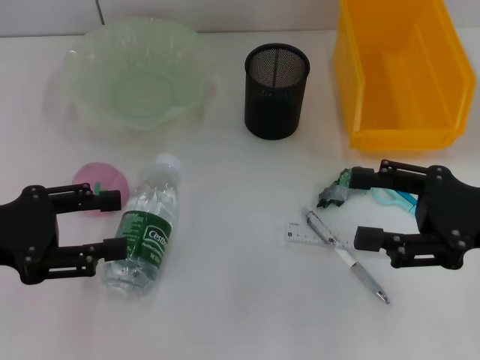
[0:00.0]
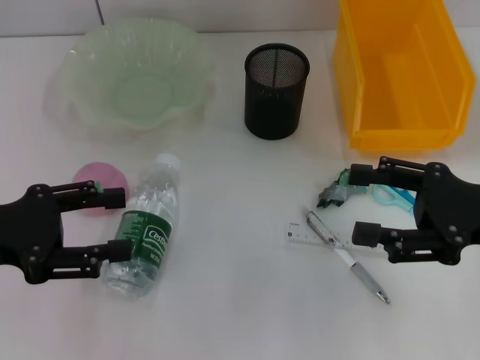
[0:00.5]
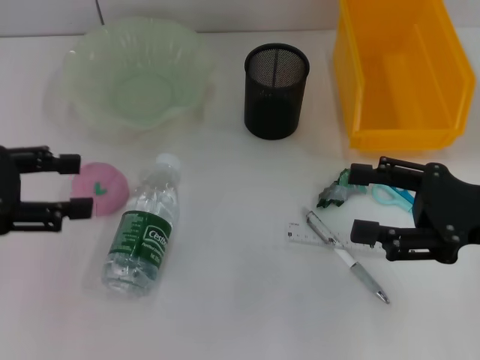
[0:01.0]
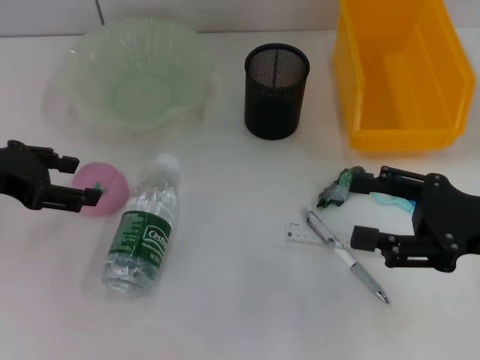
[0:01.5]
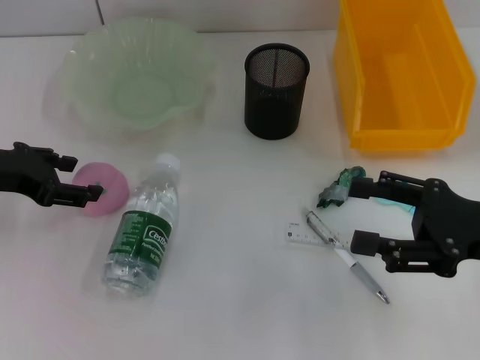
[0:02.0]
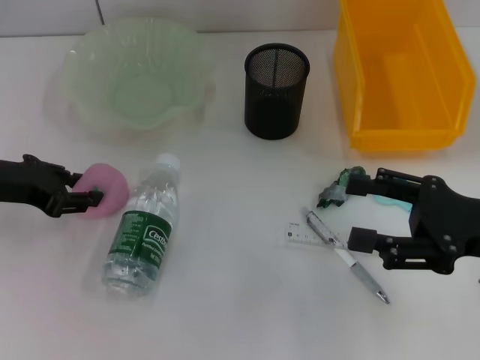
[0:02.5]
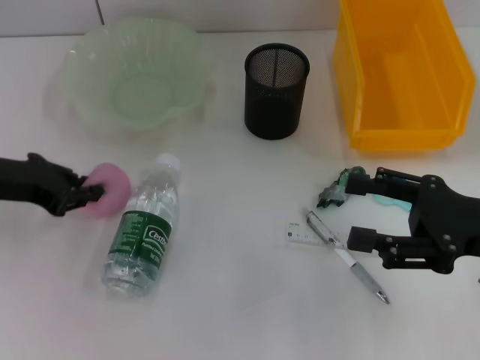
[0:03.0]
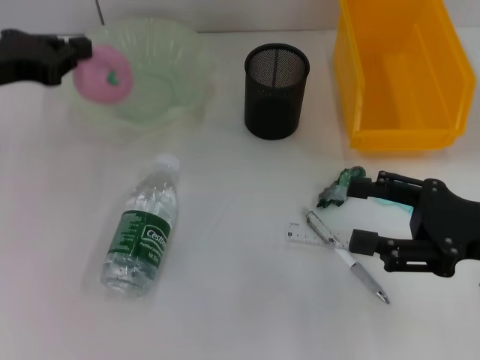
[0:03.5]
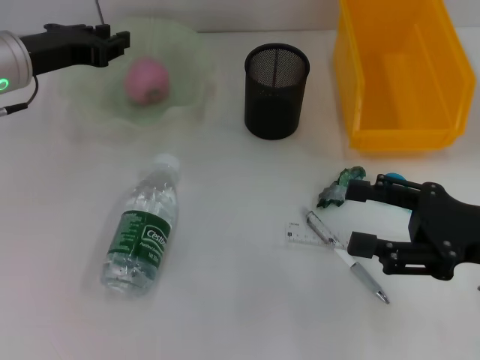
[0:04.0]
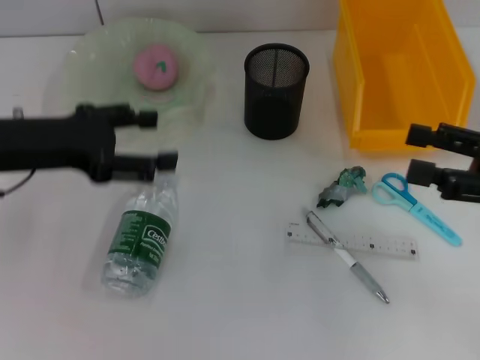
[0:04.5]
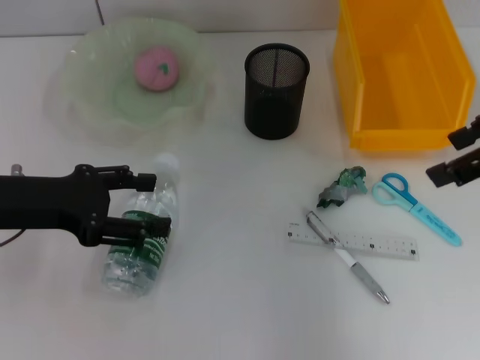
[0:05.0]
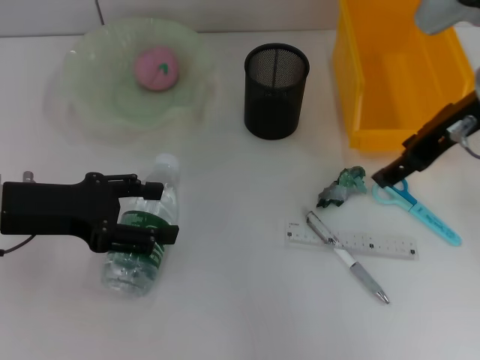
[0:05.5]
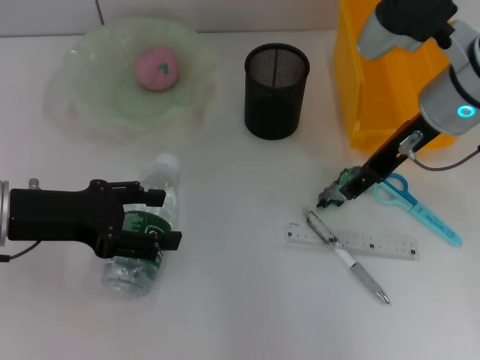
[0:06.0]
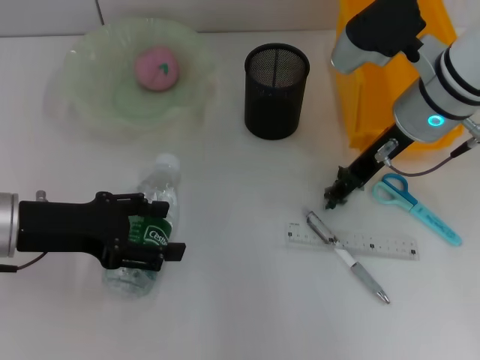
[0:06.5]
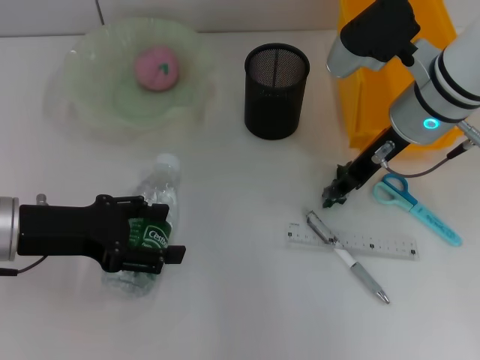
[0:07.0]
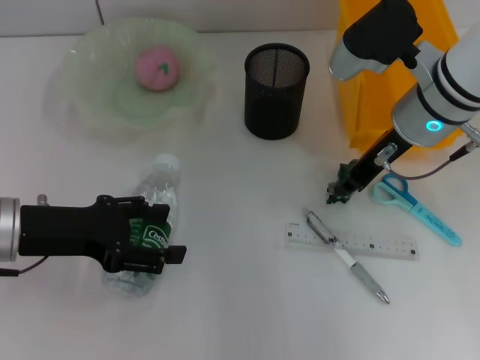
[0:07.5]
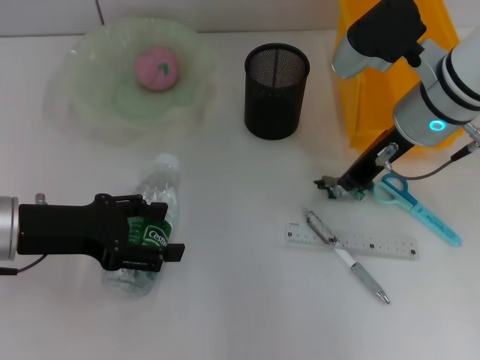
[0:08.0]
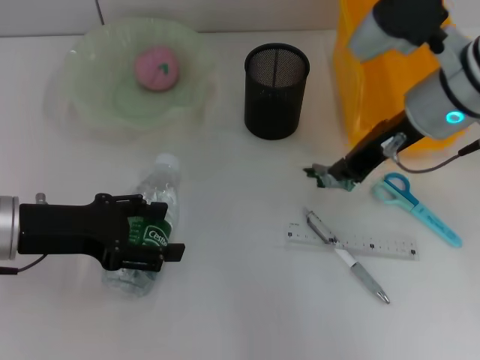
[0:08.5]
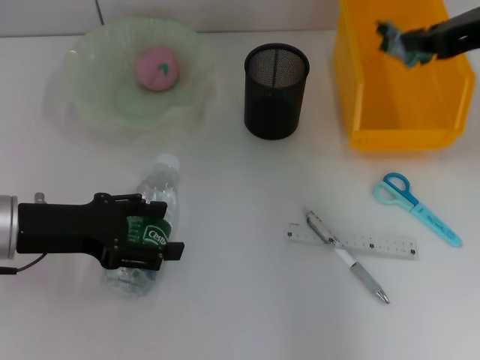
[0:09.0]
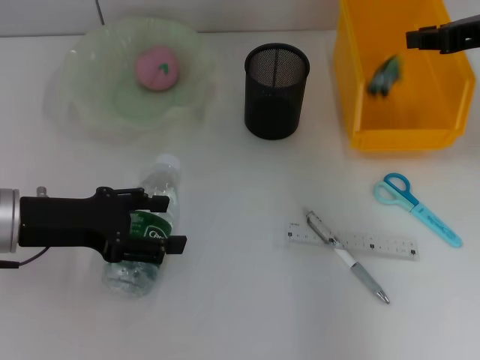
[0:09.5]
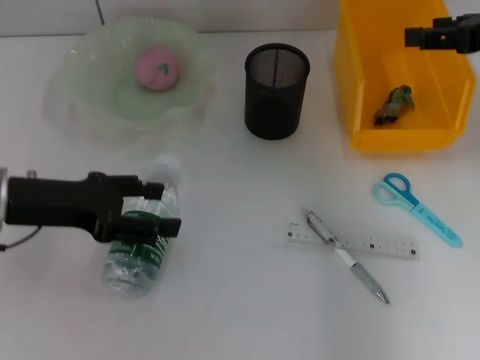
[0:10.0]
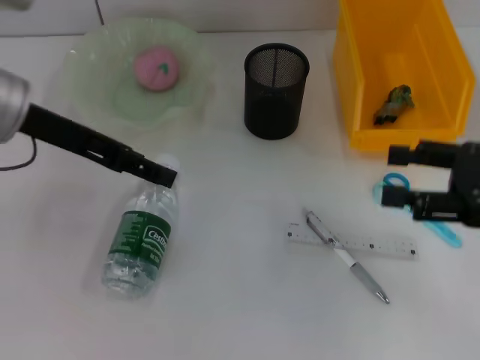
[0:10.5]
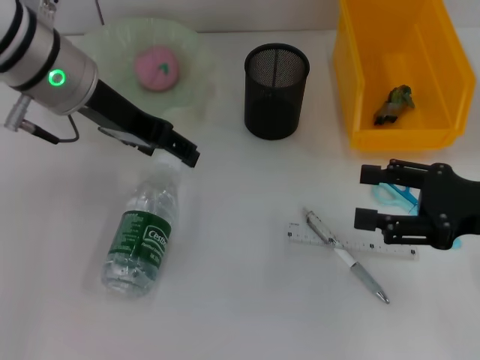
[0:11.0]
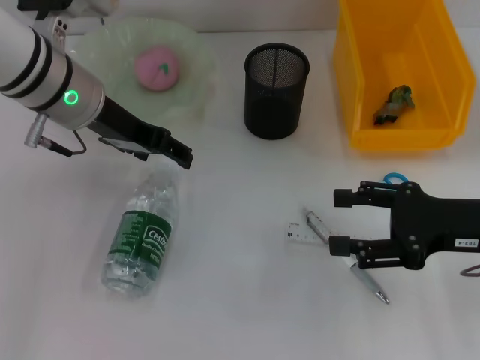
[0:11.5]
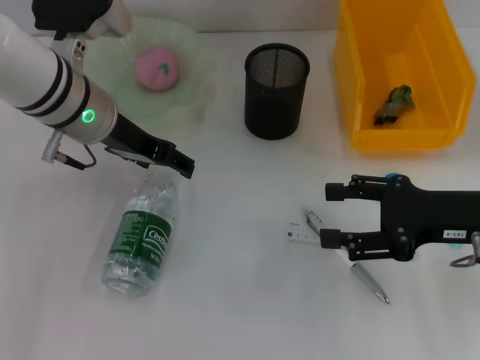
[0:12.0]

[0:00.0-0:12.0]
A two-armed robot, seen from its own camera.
Step, 0:00.0 to 0:02.5: Grab the peach with the left hand.
Step, 0:03.0 to 0:04.0: Place the peach into the fruit bowl with the left hand.
Step, 0:04.5 to 0:08.0: Grab the plastic with the right hand.
Step, 0:08.5 to 0:09.5: Place the plastic into the trash can with the right hand.
0:00.0 to 0:02.0: The left gripper is displaced forward by approximately 10 cm.
0:02.0 to 0:04.0: The left gripper heads forward, covering about 10 cm, and closes its fingers.
0:04.0 to 0:06.0: The left gripper heads backward, covering approximately 10 cm, and opens, while the right gripper moves forward, to the left and upward, about 20 cm.
0:06.0 to 0:08.0: The right gripper closes its fingers.
0:08.0 to 0:10.0: The right gripper moves to the right and upward, about 15 cm.
0:10.0 to 0:12.0: The left gripper heads forward and to the right, covering about 15 cm; the right gripper heads downward and backward, covering some 15 cm, and opens up.

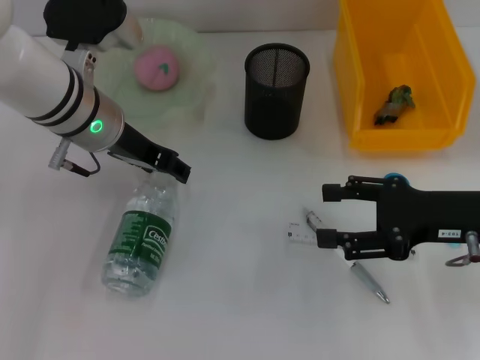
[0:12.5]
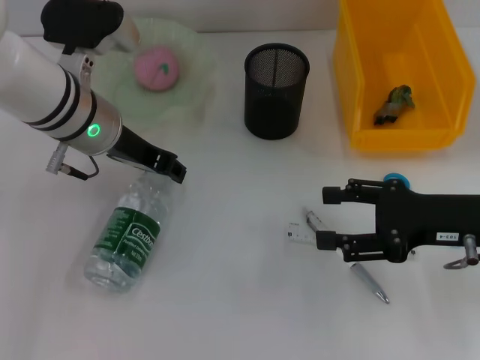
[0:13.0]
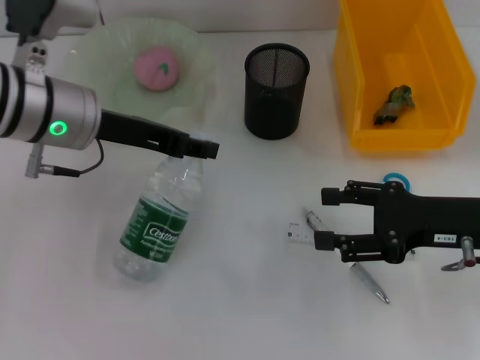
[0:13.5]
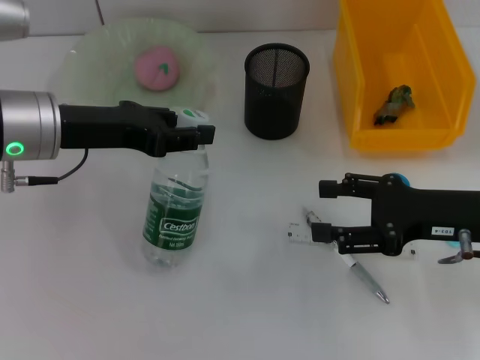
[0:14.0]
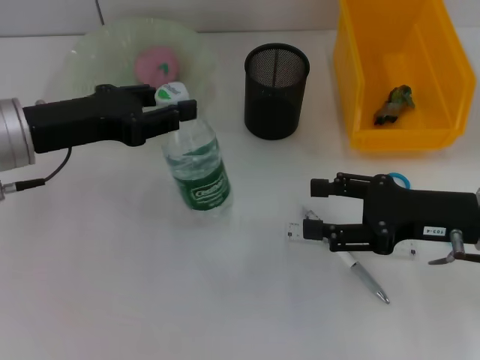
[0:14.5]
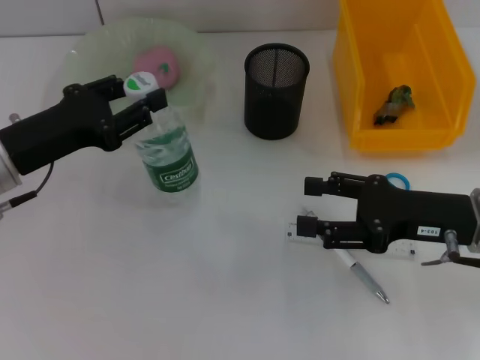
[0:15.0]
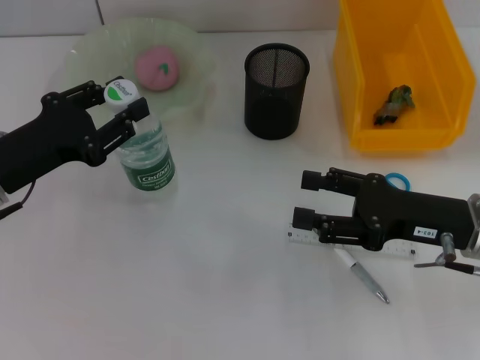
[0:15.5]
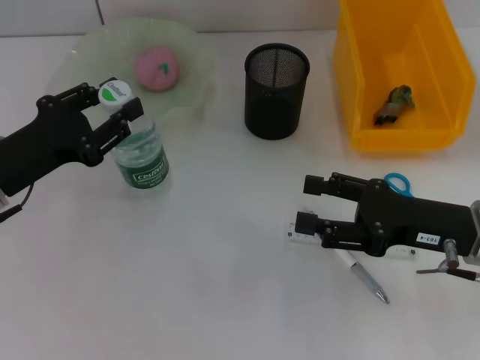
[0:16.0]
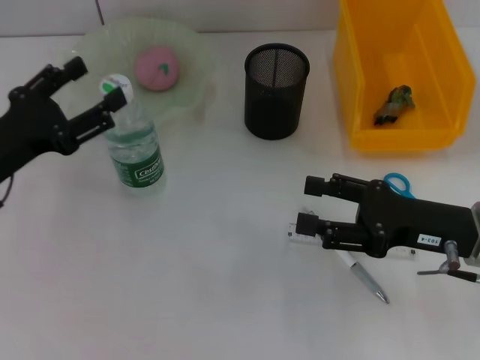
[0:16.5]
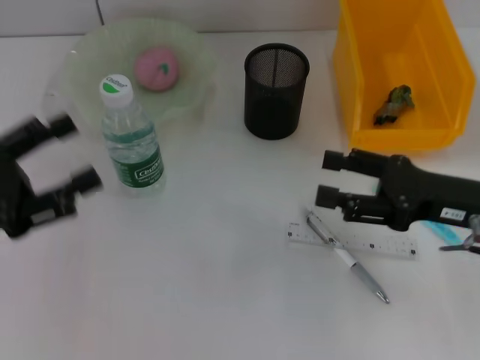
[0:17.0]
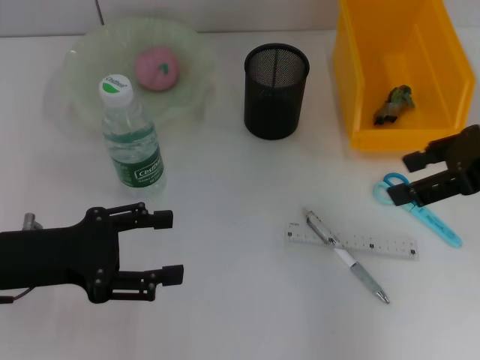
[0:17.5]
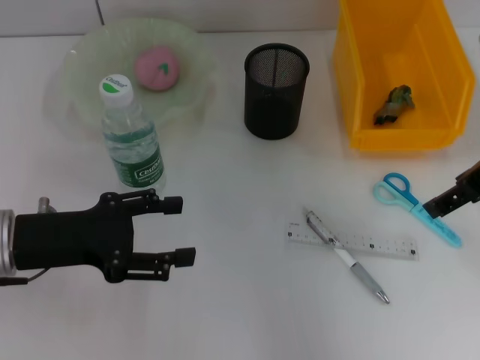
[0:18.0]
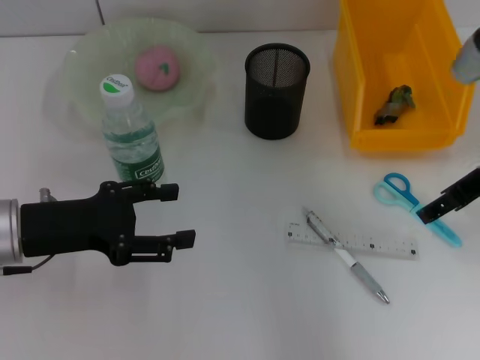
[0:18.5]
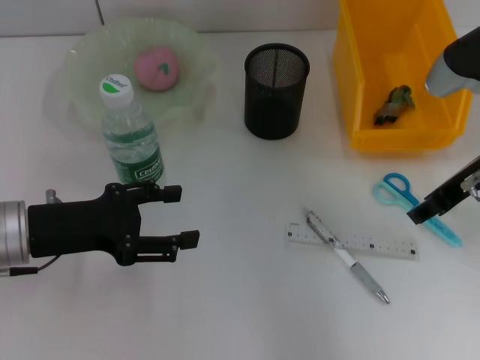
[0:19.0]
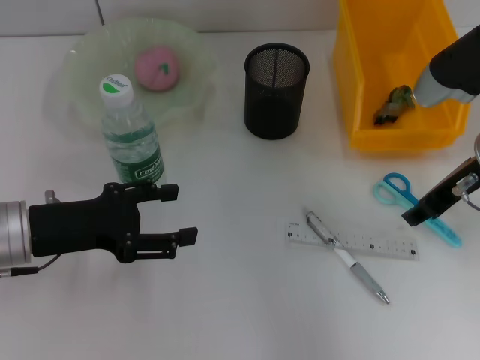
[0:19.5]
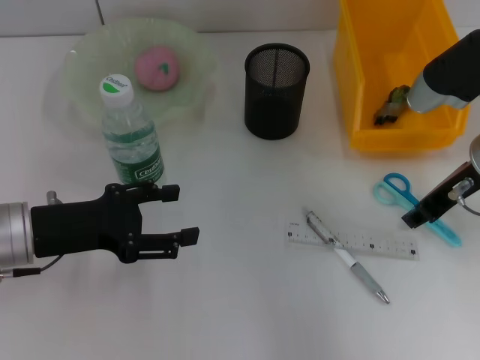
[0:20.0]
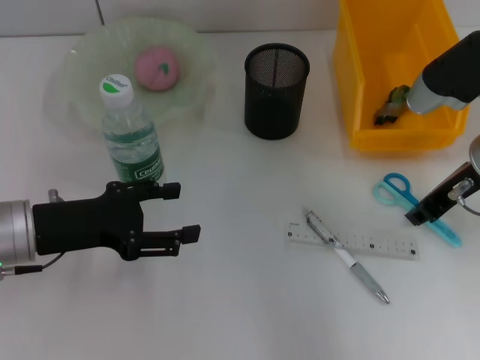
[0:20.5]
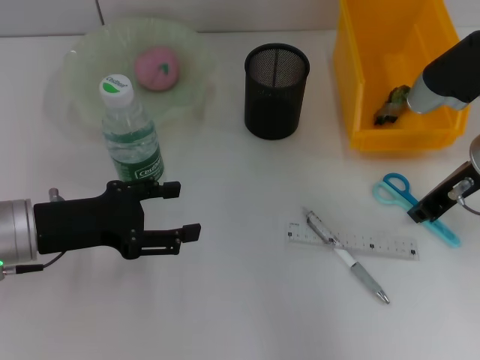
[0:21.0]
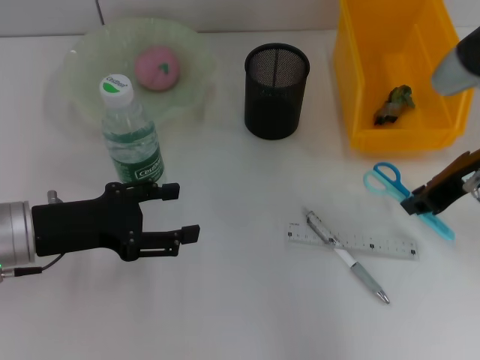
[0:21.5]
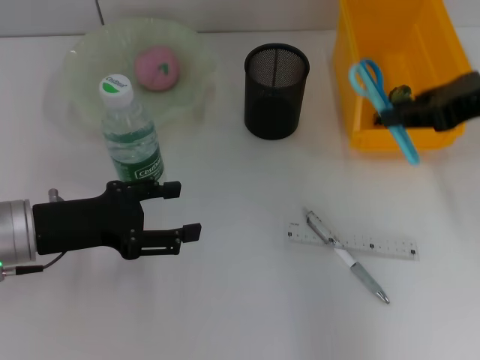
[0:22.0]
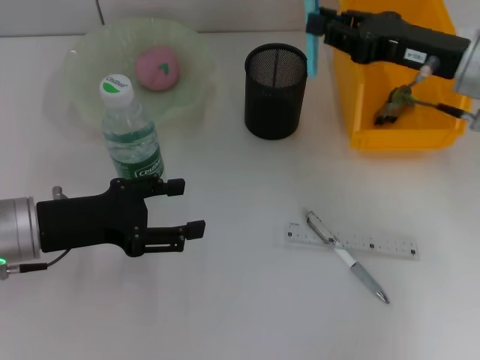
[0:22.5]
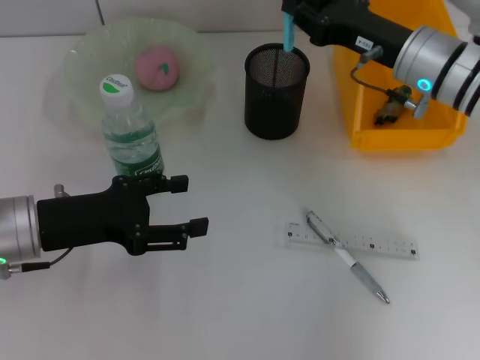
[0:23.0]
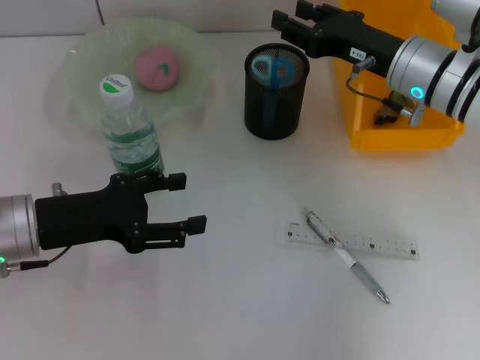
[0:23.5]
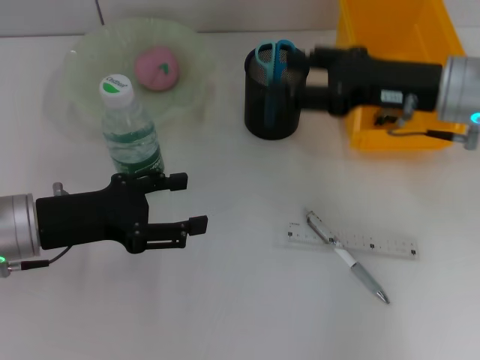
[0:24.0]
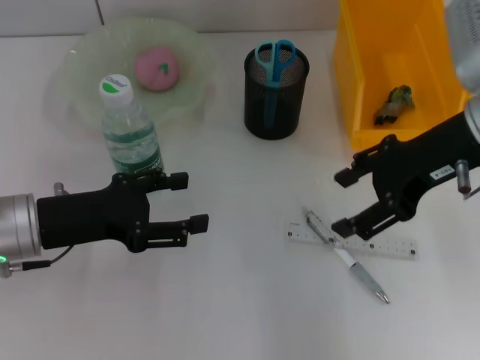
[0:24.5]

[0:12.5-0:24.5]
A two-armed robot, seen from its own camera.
Step, 0:13.0 to 0:16.0: Place the water bottle on the table with the left hand.
Step, 0:16.5 to 0:21.0: Grab the blue scissors with the right hand.
Step, 0:21.5 to 0:23.5: Place the blue scissors into the pen holder with the right hand.
0:12.5 to 0:14.5: The left gripper moves to the left and backward, some 10 cm, and closes its fingers.
0:14.5 to 0:16.5: The left gripper goes some 5 cm downward.
0:16.5 to 0:18.5: The right gripper travels upward and forward by approximately 15 cm.
0:18.5 to 0:20.5: The right gripper closes.
0:20.5 to 0:22.5: The right gripper travels upward and back again, some 10 cm each way.
0:22.5 to 0:24.5: The right gripper changes place by roughly 5 cm, and opens its fingers.

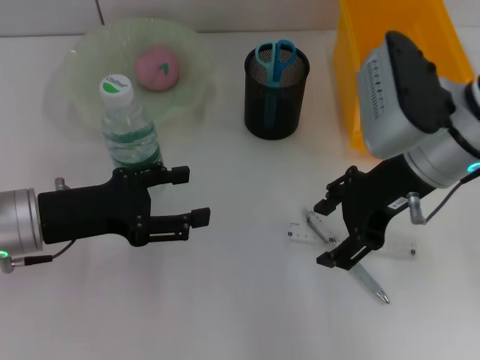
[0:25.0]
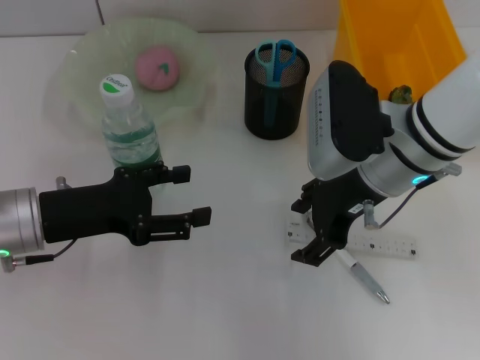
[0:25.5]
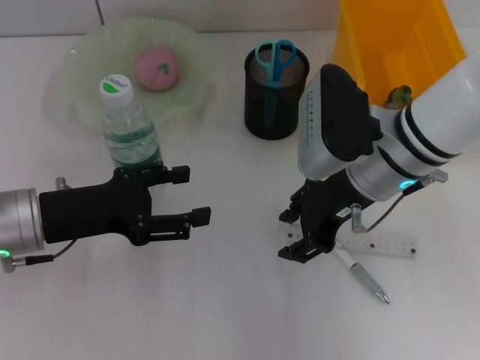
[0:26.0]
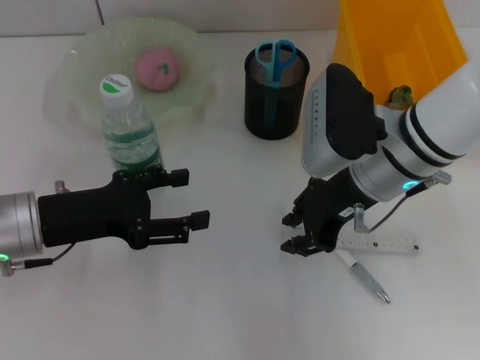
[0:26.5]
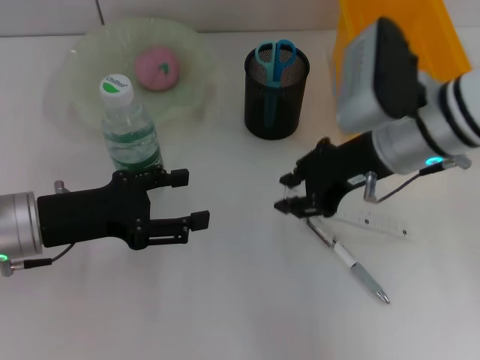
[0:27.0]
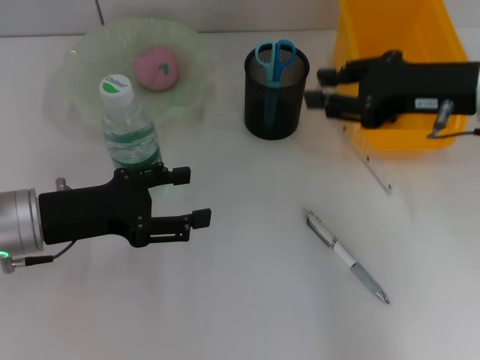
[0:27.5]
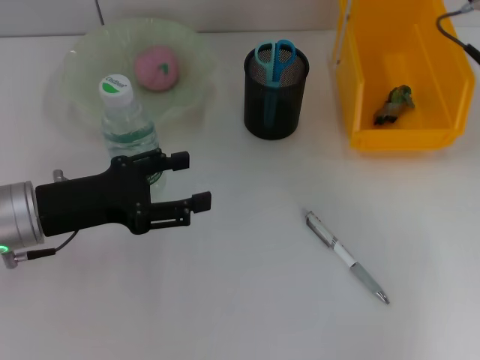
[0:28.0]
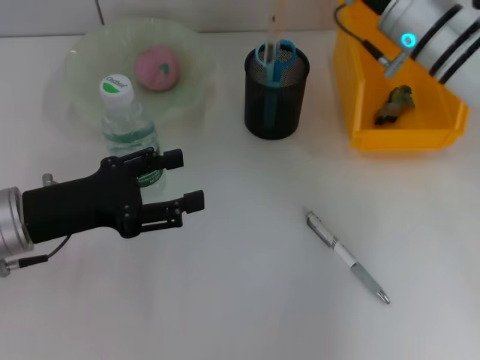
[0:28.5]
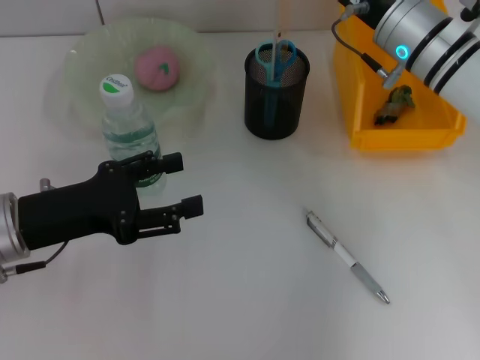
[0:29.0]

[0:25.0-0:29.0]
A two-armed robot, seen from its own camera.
0:25.0 to 0:27.0: The right gripper closes its fingers.
0:27.0 to 0:29.0: The right gripper shifts about 5 cm forward, and travels to the right and back again, some 10 cm each way.
